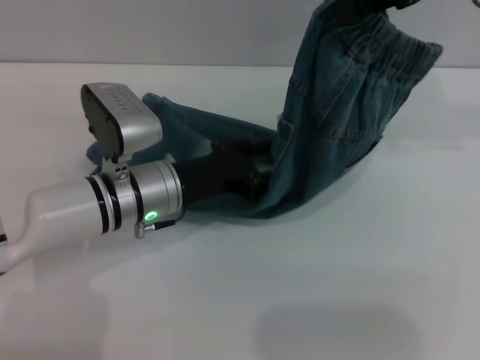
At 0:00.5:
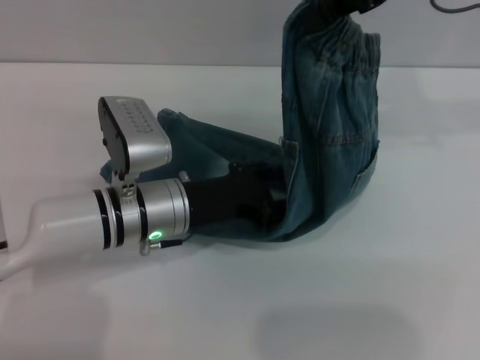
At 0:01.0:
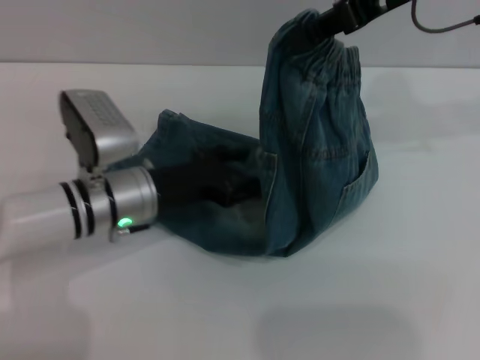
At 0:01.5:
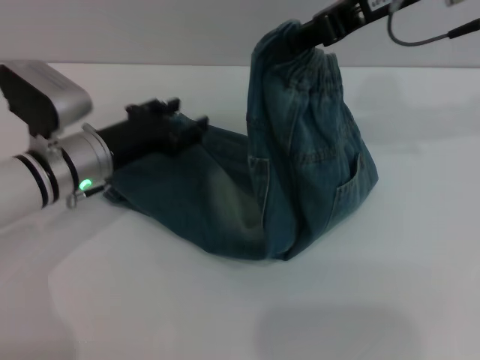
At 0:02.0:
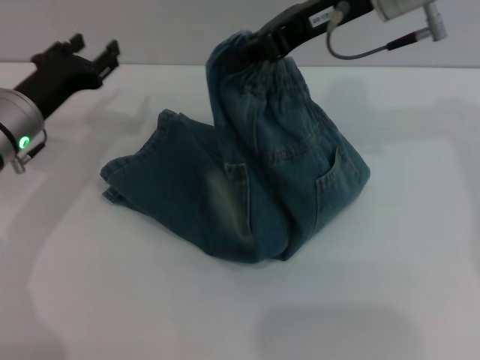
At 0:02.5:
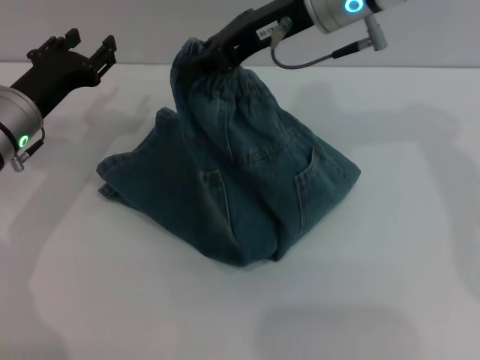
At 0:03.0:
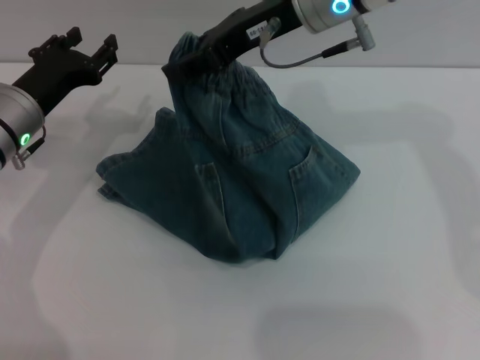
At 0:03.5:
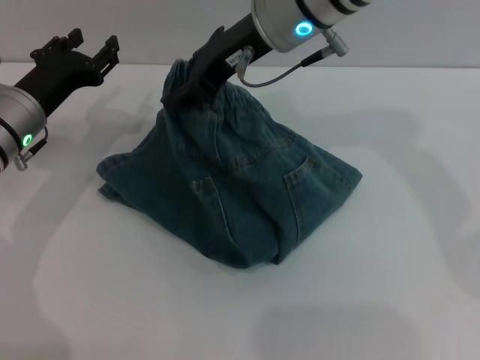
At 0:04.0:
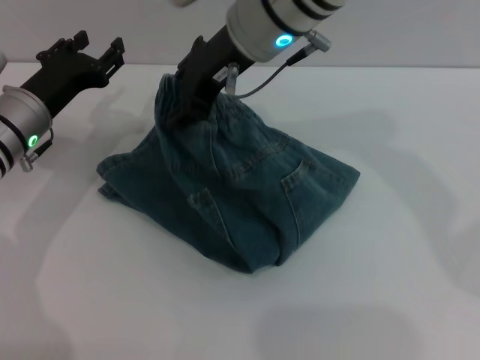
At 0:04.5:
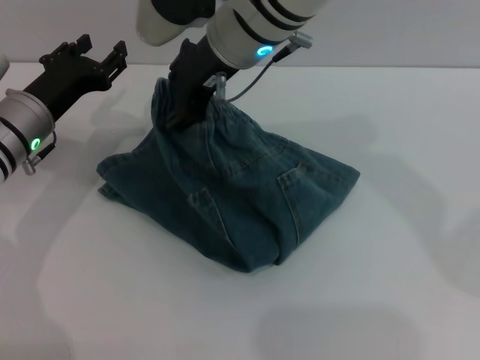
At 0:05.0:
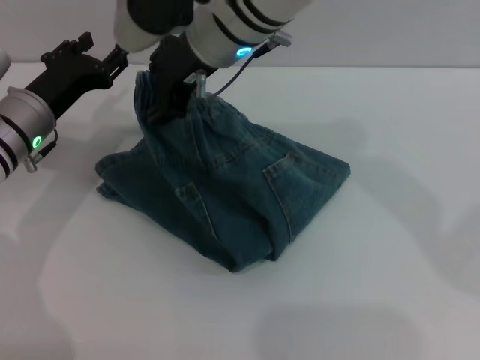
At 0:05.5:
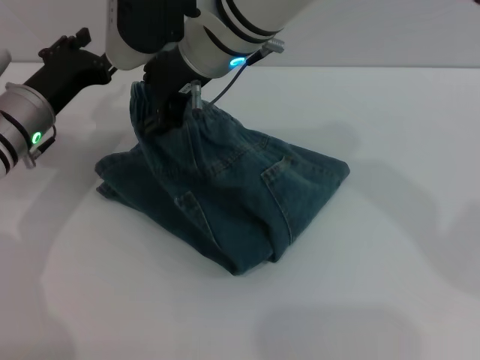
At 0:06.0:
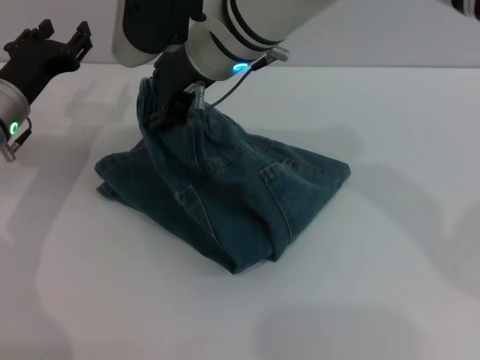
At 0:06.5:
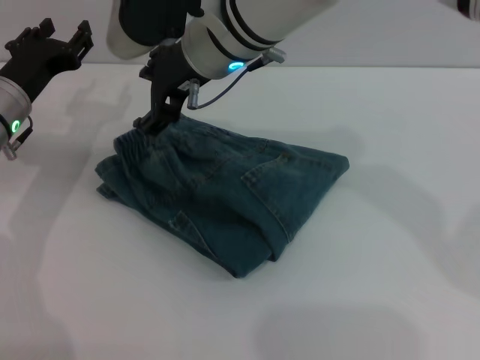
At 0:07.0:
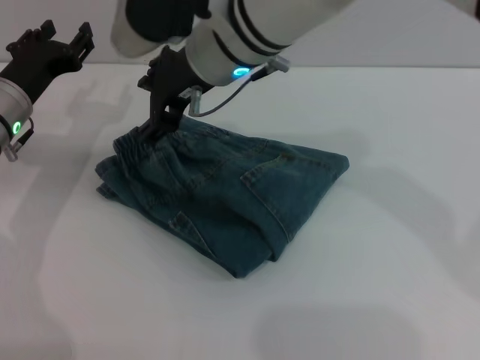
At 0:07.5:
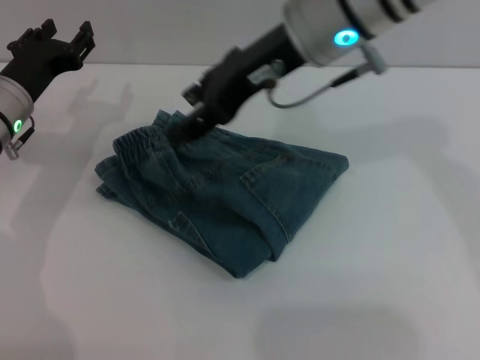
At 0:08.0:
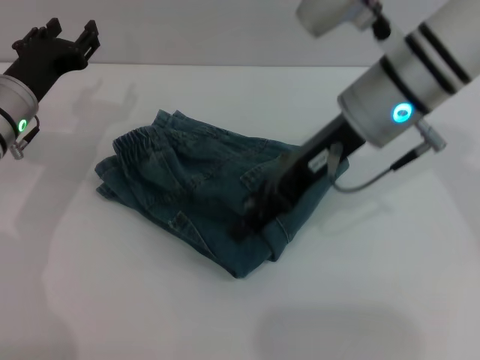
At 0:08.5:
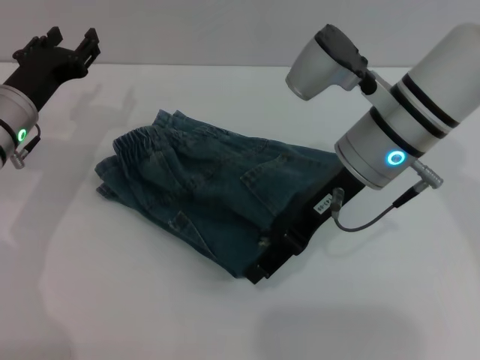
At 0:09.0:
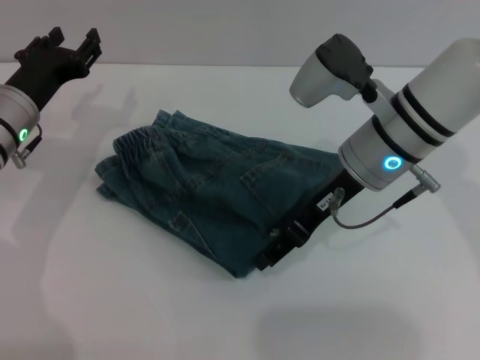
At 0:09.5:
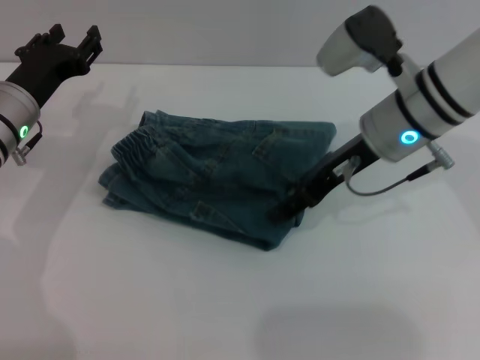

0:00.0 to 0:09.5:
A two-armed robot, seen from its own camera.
Step, 0:00.0 to 0:06.5: Fold the pants from right to left with the right gripper.
0:00.0 to 0:02.0: The left gripper travels to the left by about 10 cm; the right gripper goes about 10 cm to the left and downward.
0:02.0 to 0:04.0: The right gripper heads to the left, covering roughly 10 cm, and opens.
0:04.0 to 0:05.5: The grippers make only small movements.
0:05.5 to 0:07.5: The right gripper moves to the right, roughly 10 cm.
0:07.5 to 0:09.5: The right gripper moves downward and to the right, about 10 cm.

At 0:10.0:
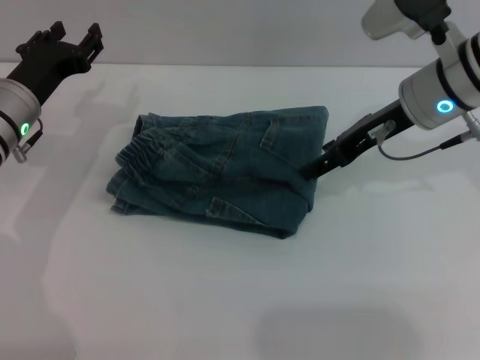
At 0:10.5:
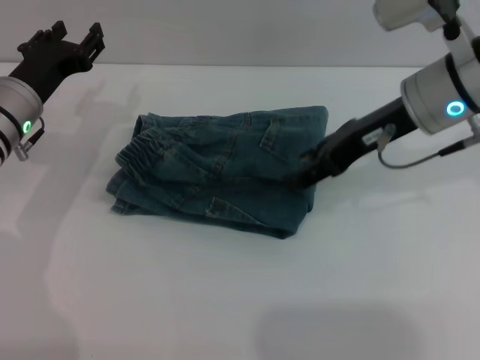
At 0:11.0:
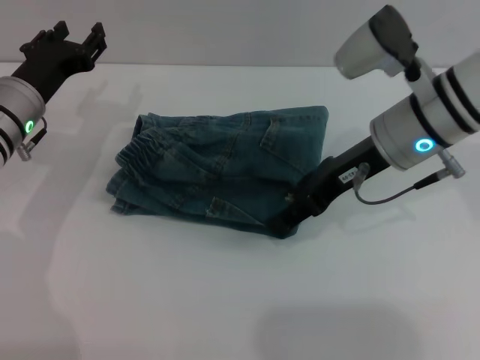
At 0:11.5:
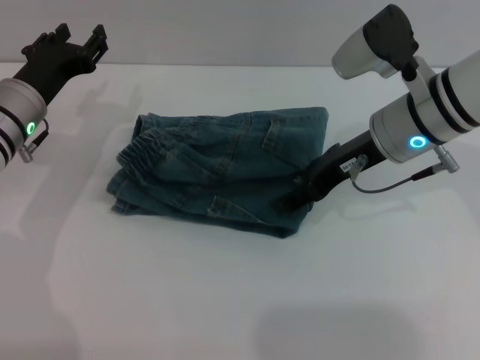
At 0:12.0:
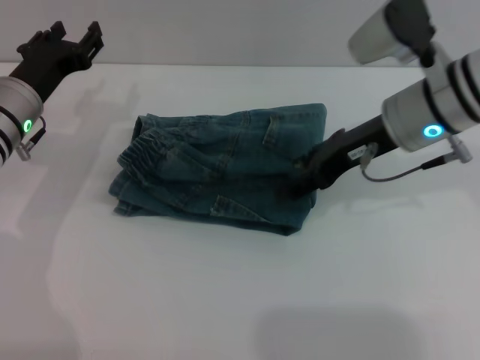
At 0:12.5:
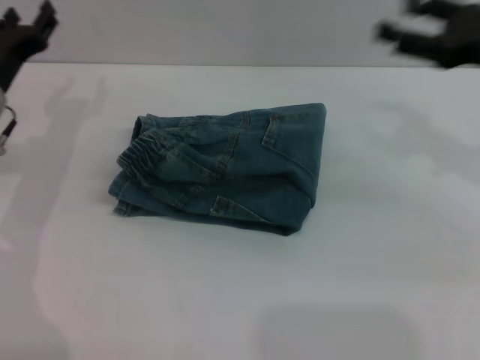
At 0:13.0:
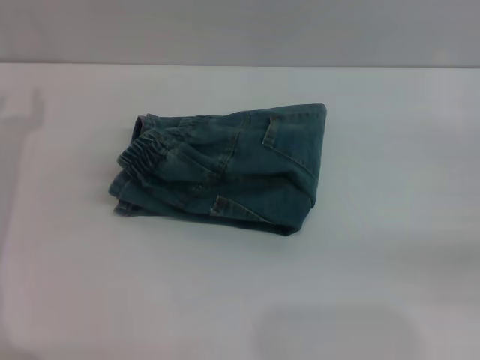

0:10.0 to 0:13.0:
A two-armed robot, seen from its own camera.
Step, 0:10.0 to 0:12.0: Place the folded trousers onto the center area with the right grippers.
0:10.0 to 0:11.5: The grippers make only small movements.
0:11.5 to 0:13.0: The right gripper travels to the right by some 25 cm, while the left gripper shifts about 10 cm to the left and backward.
